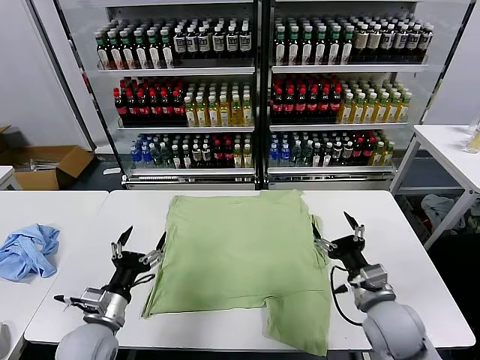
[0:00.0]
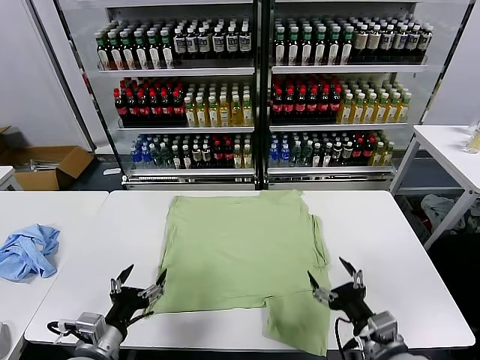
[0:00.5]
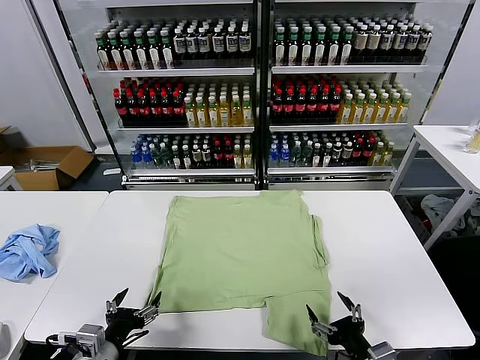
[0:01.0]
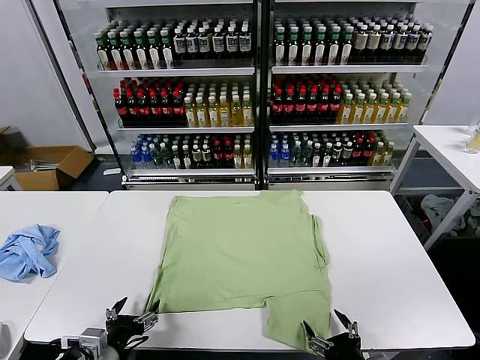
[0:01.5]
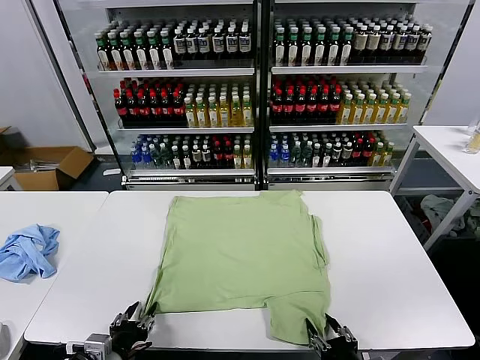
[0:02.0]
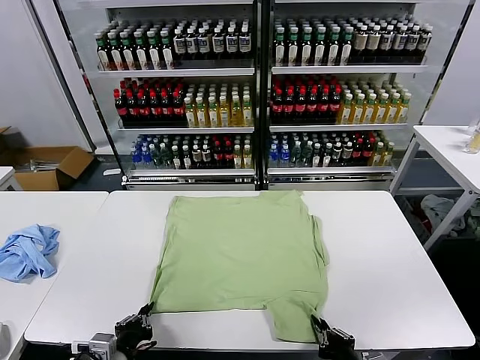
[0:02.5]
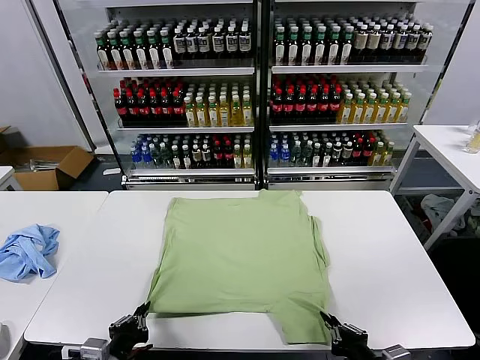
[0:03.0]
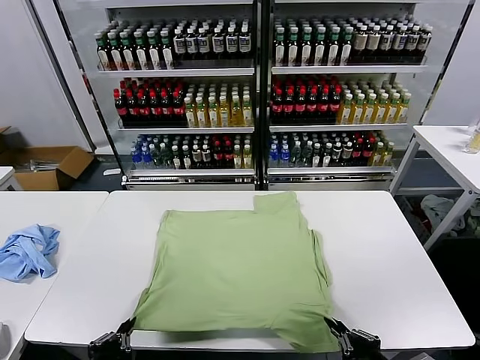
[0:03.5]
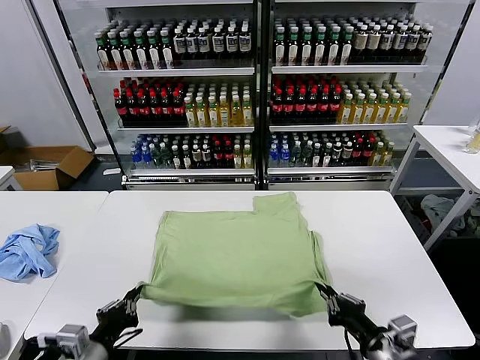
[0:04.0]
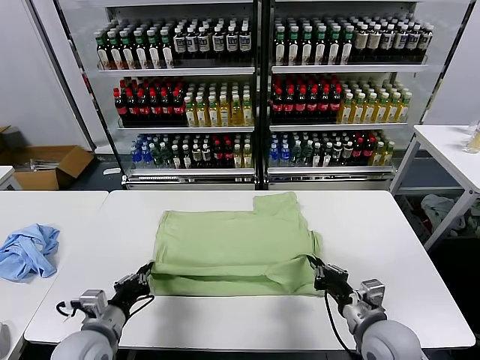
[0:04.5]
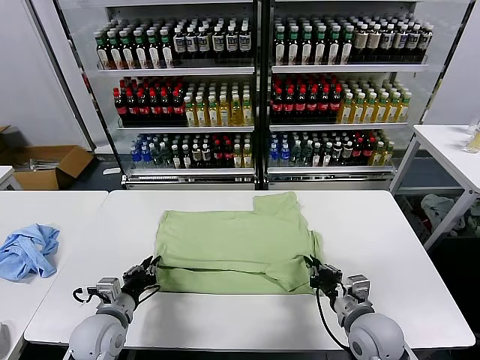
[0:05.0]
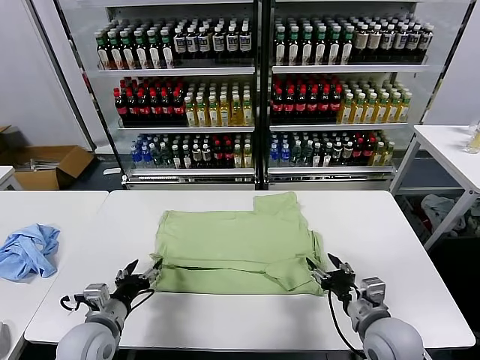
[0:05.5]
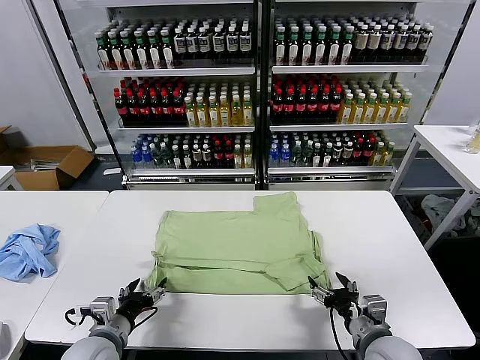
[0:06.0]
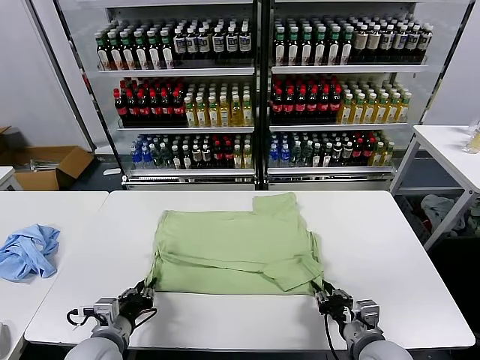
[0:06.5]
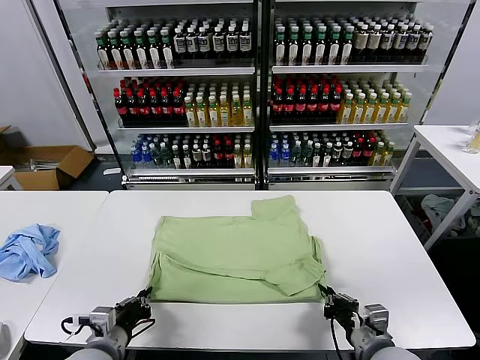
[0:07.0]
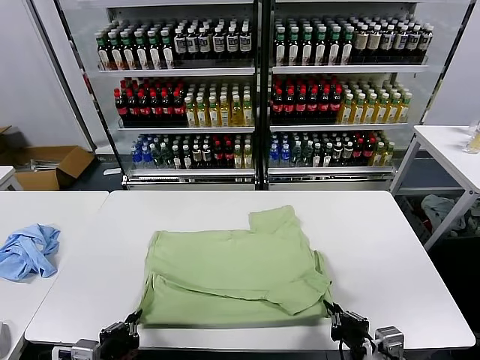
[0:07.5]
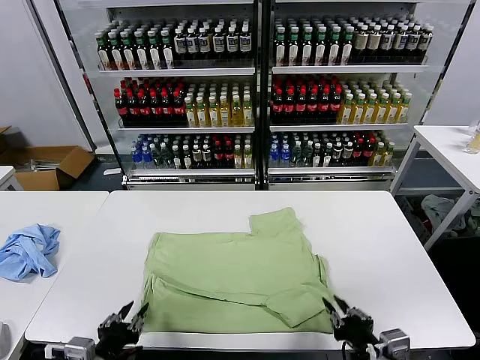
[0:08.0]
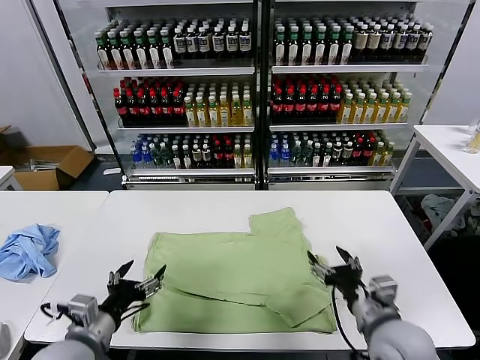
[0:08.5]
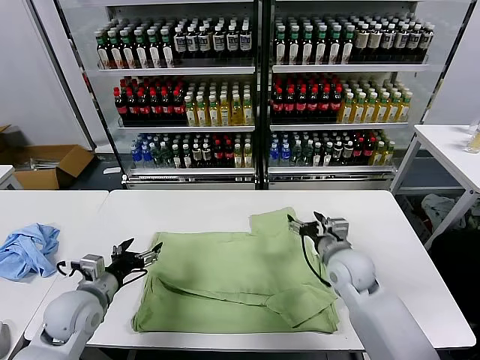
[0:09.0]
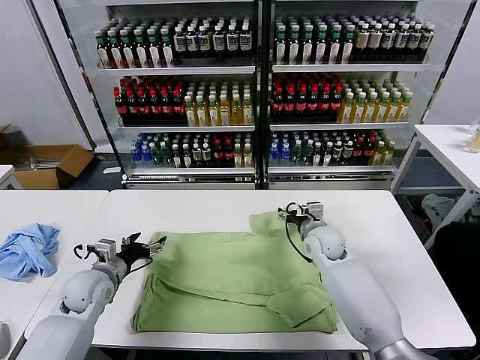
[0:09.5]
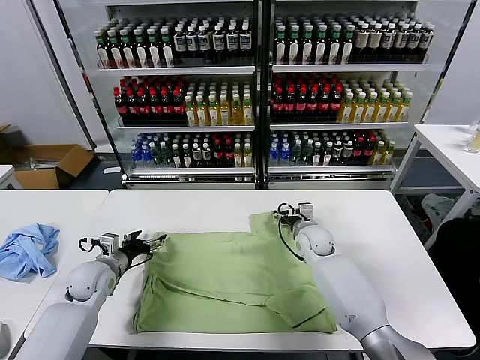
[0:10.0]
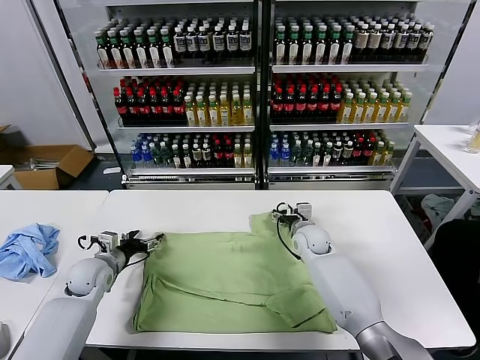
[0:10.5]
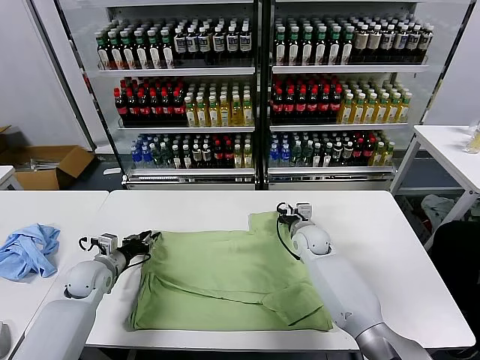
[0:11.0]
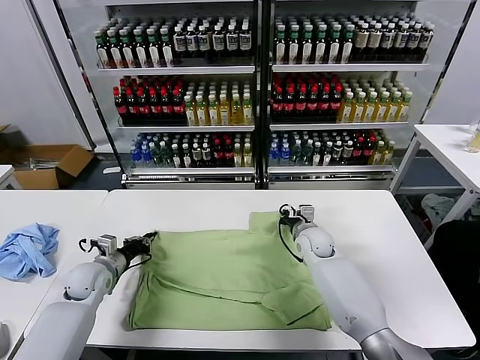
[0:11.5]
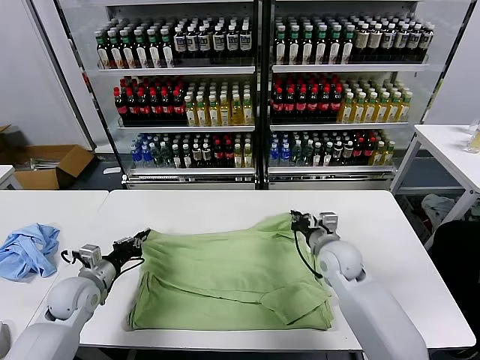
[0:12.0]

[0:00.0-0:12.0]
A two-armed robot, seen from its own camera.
Task of the whole recording: fold and organize the clothes.
Step, 0:00.0 to 0:02.5: use both grippers simultaneously to clamp the lower edge of the clothing fabric.
Step, 0:03.0 to 0:05.0: use both grippers to drag the lower edge of the fabric forward and fold it over the upper edge.
Step, 0:06.0 to 0:08.0: Drag the clothes downward with both gripper.
Step, 0:08.5 to 0:11.0: use both grippers simultaneously to clamp the upper edge of the clothing fabric.
0:02.0 to 0:04.0: The left gripper shifts some 5 cm upward, and closes. The right gripper goes some 10 cm forward and upward, and closes up.
0:04.0 to 0:06.0: The left gripper shifts about 10 cm forward and downward, and opens. The right gripper opens.
0:06.0 to 0:08.0: The left gripper moves backward and upward, about 10 cm, and closes and opens again. The right gripper travels upward and backward by some 10 cm, and closes, then opens again.
0:08.0 to 0:10.0: The grippers both shift forward by some 30 cm. The left gripper opens its fingers. Meanwhile the right gripper opens its fingers.
0:10.0 to 0:12.0: The left gripper goes roughly 5 cm backward, and closes its fingers. Meanwhile the right gripper moves backward and upward, about 15 cm, and closes.

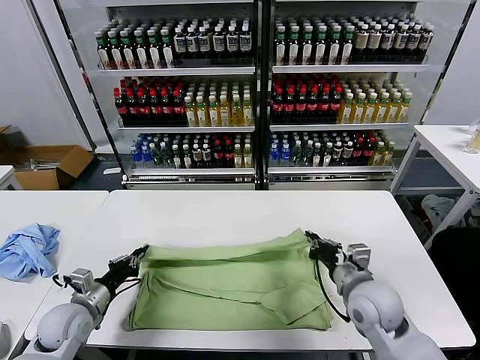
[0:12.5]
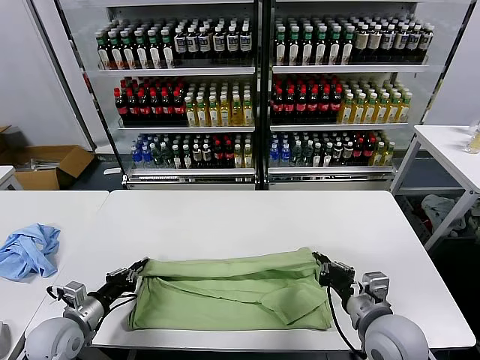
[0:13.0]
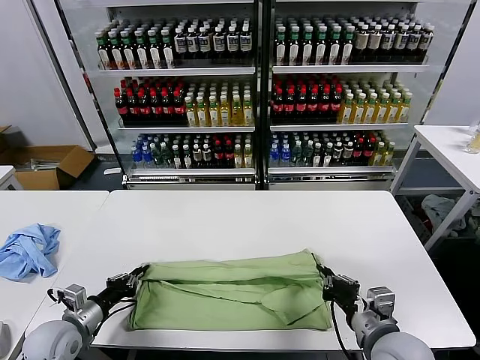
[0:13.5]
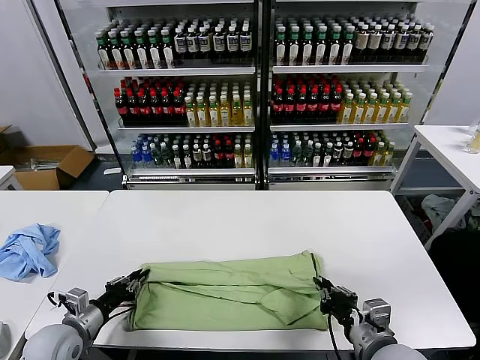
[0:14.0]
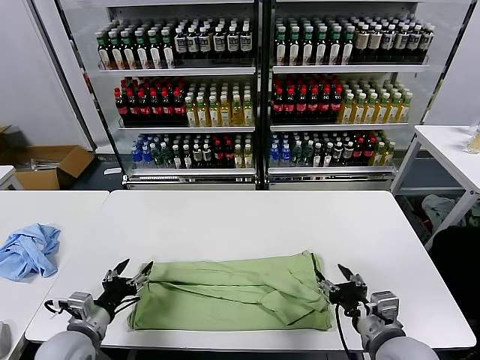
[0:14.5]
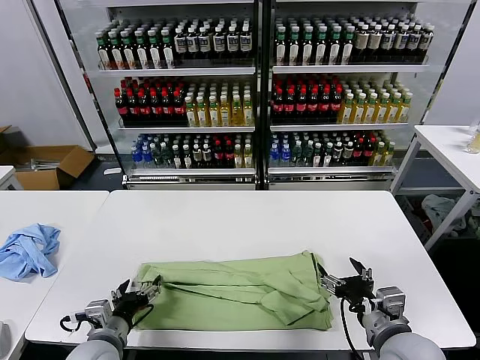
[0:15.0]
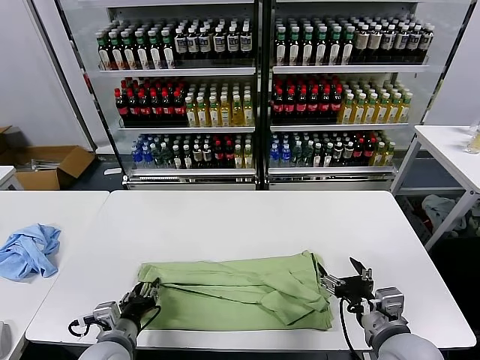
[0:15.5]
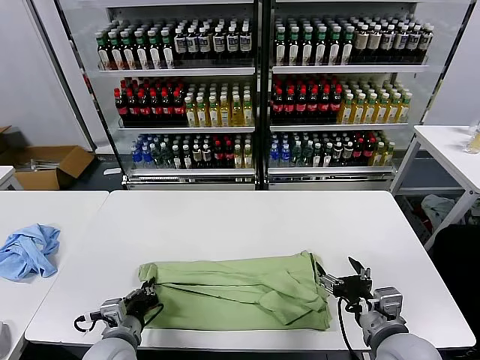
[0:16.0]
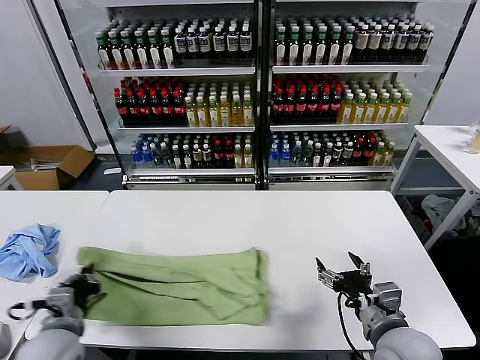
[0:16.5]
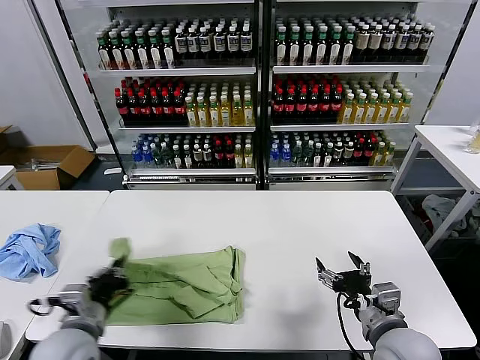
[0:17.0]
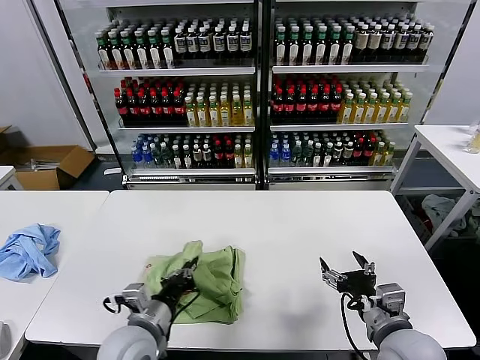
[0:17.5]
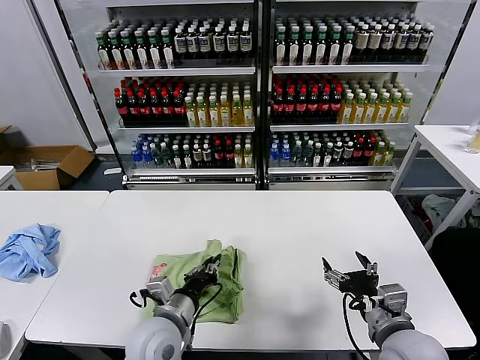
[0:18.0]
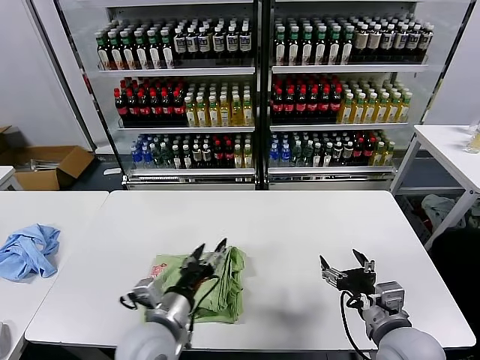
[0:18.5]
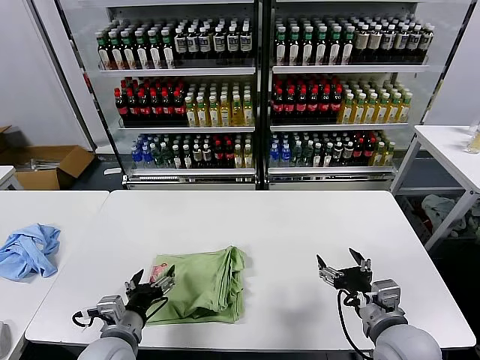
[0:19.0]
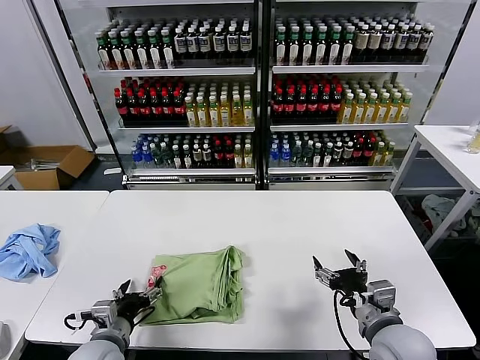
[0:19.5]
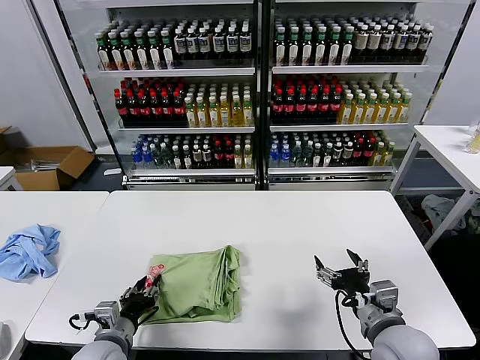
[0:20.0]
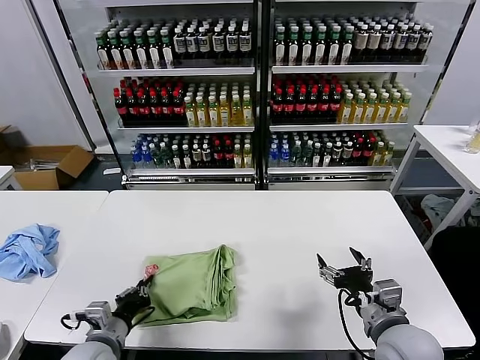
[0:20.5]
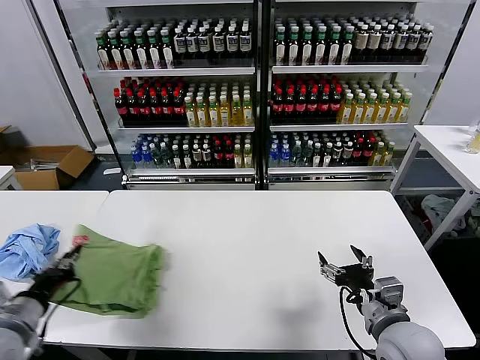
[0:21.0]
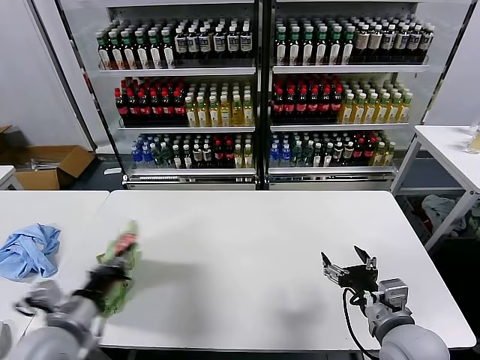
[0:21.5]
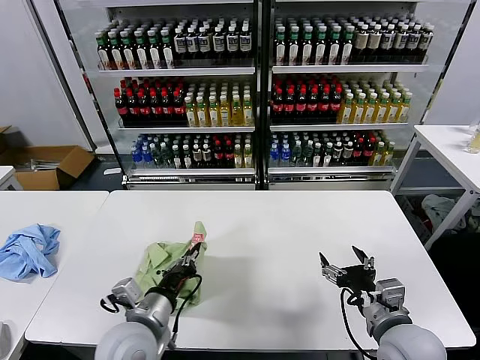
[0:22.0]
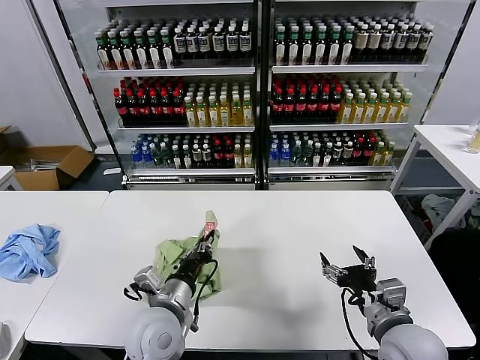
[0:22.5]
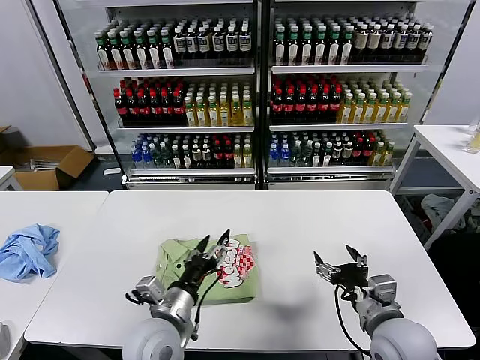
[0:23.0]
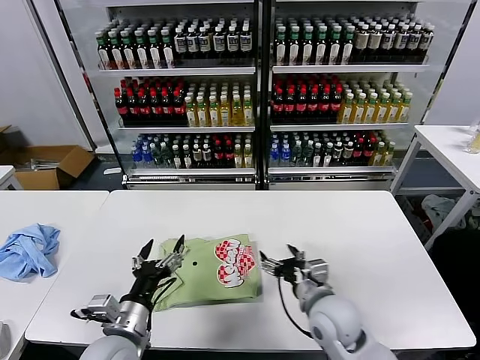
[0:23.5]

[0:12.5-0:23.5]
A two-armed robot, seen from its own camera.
Task of the whole recording: fold and organize the clothes.
Step, 0:12.5 to 0:14.0: use both grippers to drag the upper edge of the fabric backward and fold it over the lower edge.
Step, 0:14.5 to 0:15.5: use the left gripper to clamp the left edge of the fabric.
Step, 0:16.0 to 0:18.0: use the left gripper to drag the left edge of the fabric to the left and folds it over the right edge.
Step, 0:18.5 to 0:22.5: Flip the folded clothes over with left gripper.
0:12.5 to 0:14.5: The grippers both shift backward by about 5 cm. The right gripper opens its fingers. The left gripper opens up.
0:14.5 to 0:16.0: The left gripper moves to the right, approximately 10 cm, and closes its fingers.
0:16.0 to 0:18.0: The left gripper goes about 10 cm to the right and upward.
0:18.0 to 0:20.0: The left gripper is displaced to the left and downward by about 15 cm, and opens.
0:20.0 to 0:21.5: The left gripper goes approximately 15 cm upward, and closes its fingers.
0:21.5 to 0:23.5: The left gripper travels to the right and downward by about 10 cm, and opens. Meanwhile the right gripper is displaced to the left and forward by approximately 10 cm.

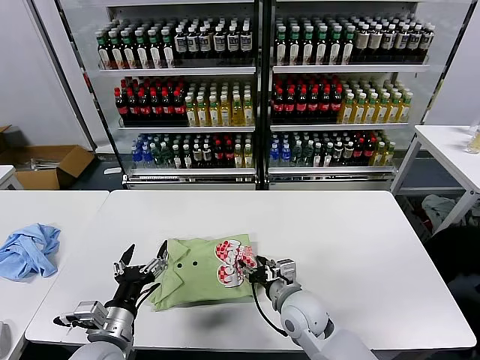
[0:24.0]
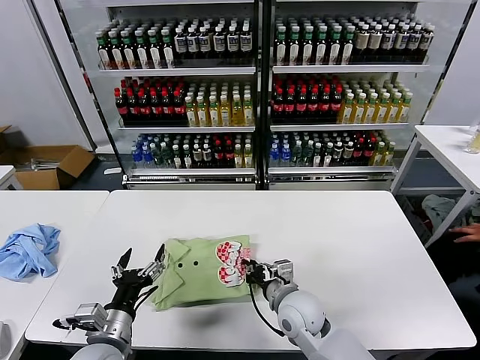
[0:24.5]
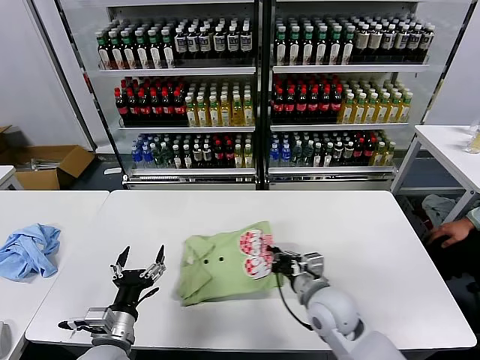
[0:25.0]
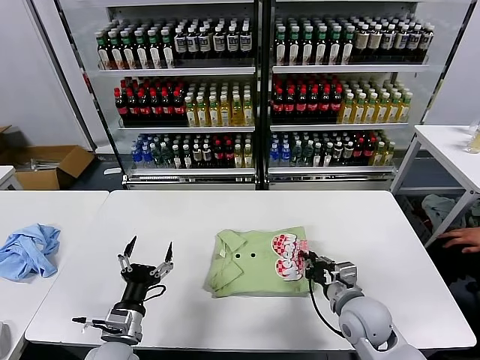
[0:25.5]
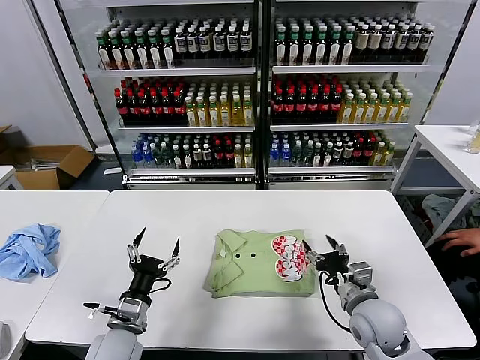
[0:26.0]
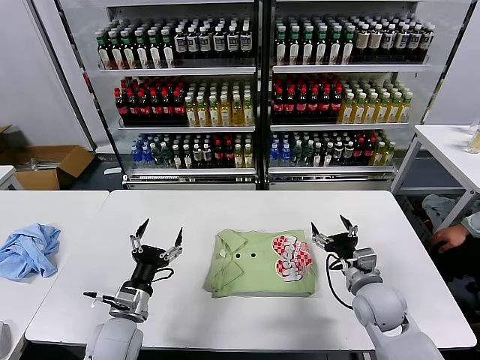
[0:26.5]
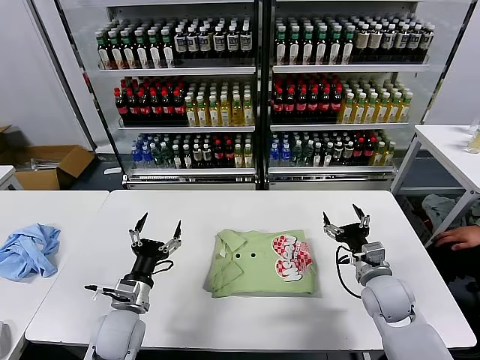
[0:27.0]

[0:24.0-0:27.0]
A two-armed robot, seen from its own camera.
Task of the whole recording: fold and organize the clothes.
Step, 0:24.0 to 0:25.5: Drag the clothes to the center of the table.
0:24.0 to 0:25.5: The right gripper travels to the right by some 10 cm, and closes. The left gripper heads downward, covering about 5 cm.
0:25.5 to 0:27.0: The right gripper goes some 5 cm to the right, and opens up. The left gripper shifts approximately 5 cm forward.
